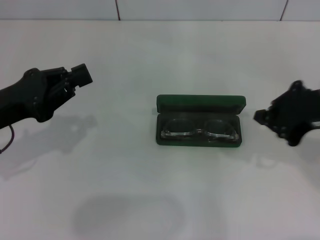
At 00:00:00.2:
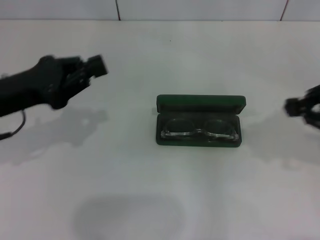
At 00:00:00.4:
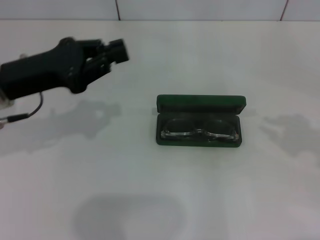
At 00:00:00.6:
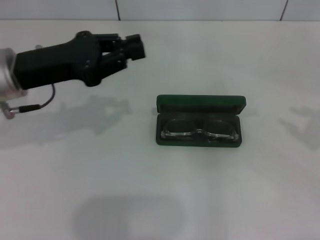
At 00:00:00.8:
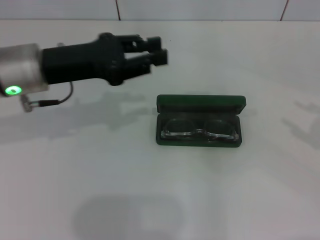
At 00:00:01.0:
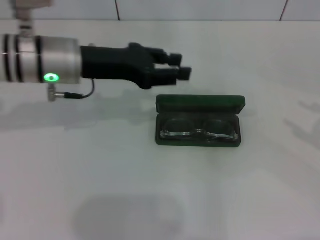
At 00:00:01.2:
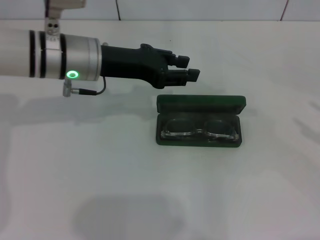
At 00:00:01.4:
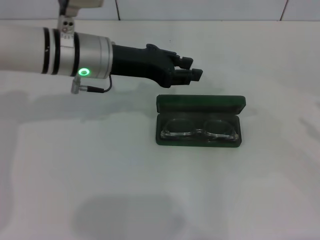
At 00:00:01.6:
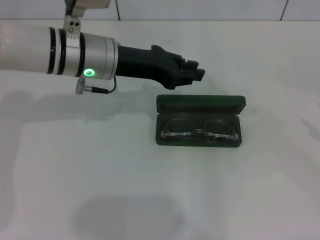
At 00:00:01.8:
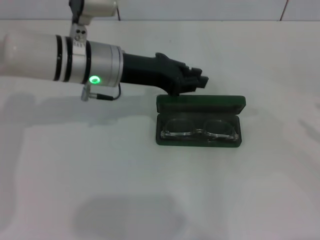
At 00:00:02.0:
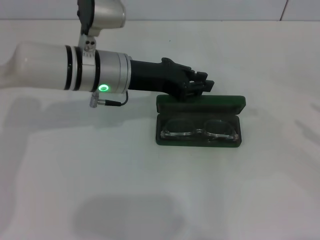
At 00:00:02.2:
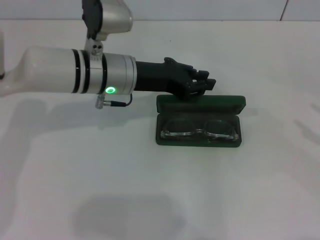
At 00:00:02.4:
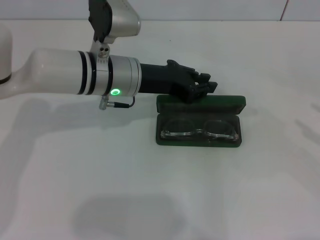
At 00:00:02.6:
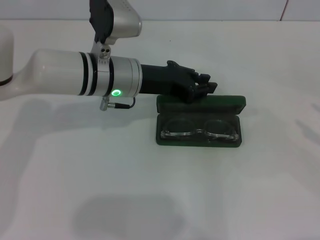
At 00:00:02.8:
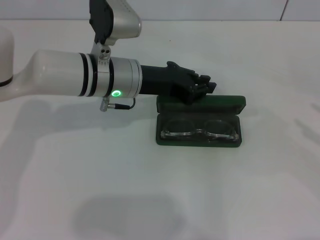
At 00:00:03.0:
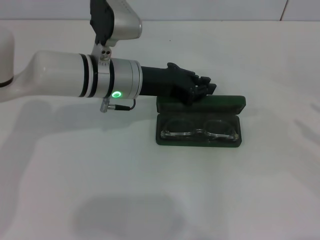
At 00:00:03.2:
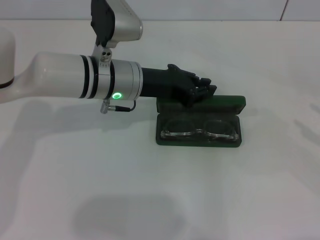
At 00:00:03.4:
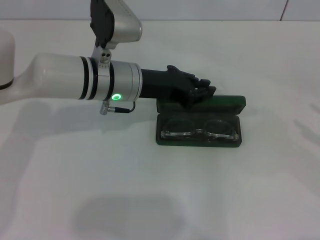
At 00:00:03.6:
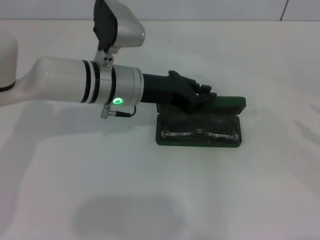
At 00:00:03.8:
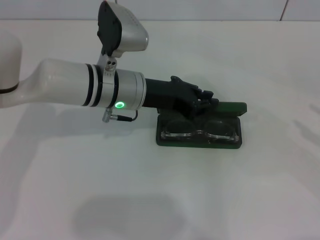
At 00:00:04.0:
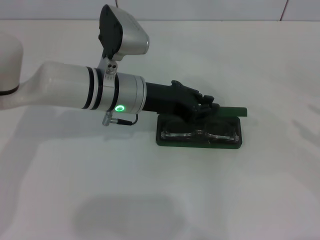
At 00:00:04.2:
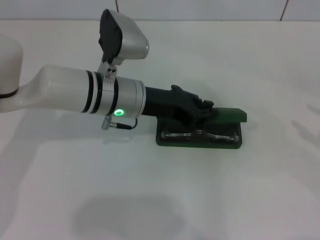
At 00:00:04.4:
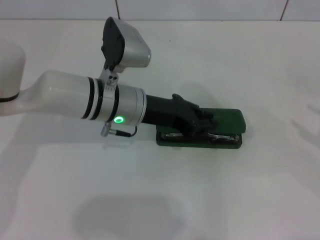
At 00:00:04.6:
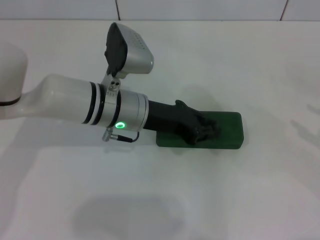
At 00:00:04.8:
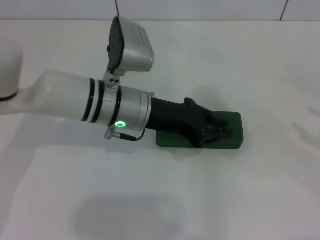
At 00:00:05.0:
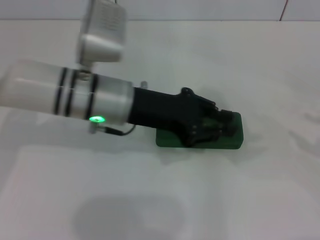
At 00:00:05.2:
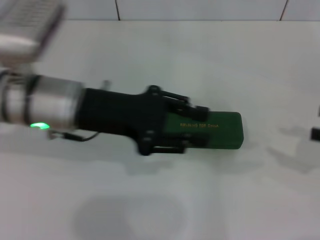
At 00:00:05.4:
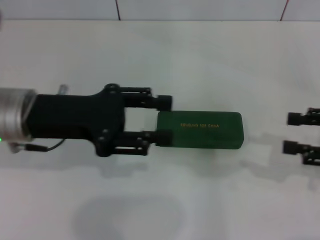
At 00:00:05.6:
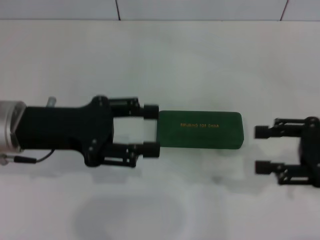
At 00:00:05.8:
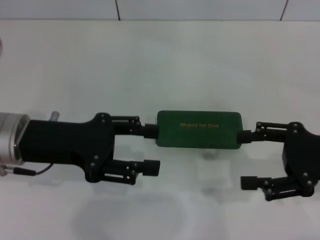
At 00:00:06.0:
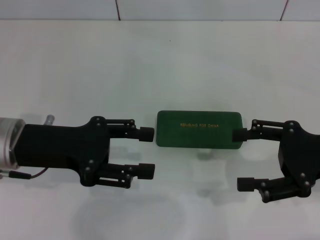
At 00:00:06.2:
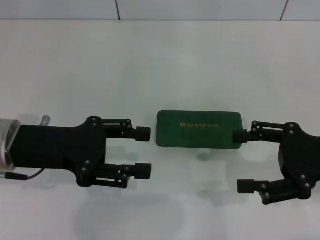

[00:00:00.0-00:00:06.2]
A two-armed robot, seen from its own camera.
Step, 00:00:00.0 to 00:00:05.0: Close the glasses case with your left hand.
00:00:00.0 to 00:00:01.6: The right gripper is displaced to the right by about 20 cm, and opens its fingers. Meanwhile the left gripper goes about 20 cm to the right and forward, and opens its fingers.
00:00:01.6 to 00:00:03.2: The left gripper closes its fingers.
00:00:03.2 to 00:00:04.6: The grippers stay close to where they were, moving slightly.
00:00:04.6 to 00:00:06.2: The right gripper moves to the left, roughly 15 cm. Meanwhile the left gripper moves to the left and backward, roughly 15 cm, and opens.
